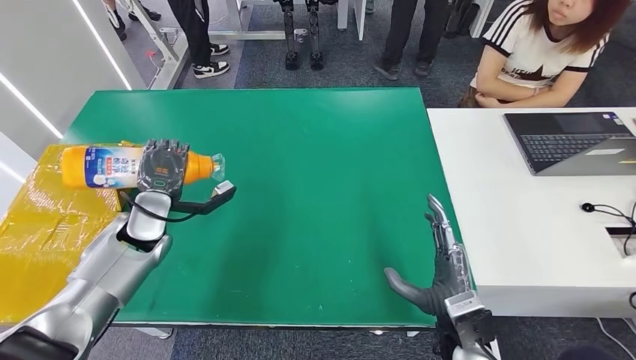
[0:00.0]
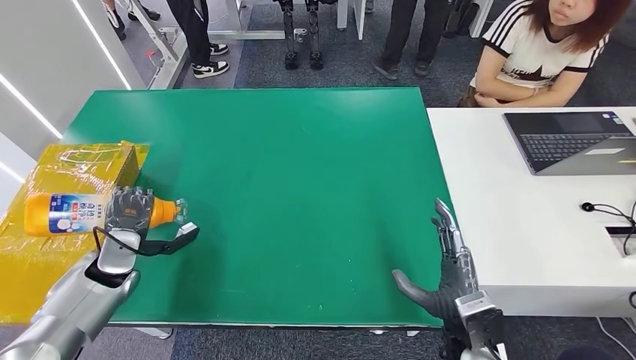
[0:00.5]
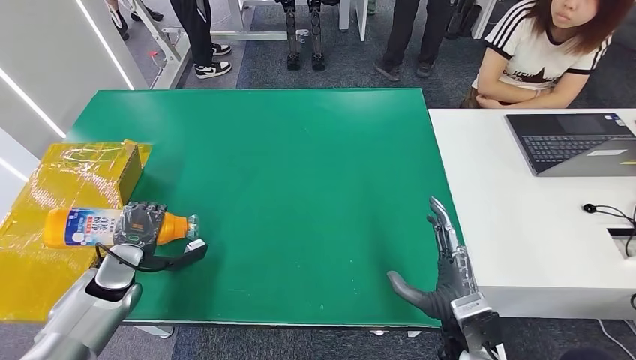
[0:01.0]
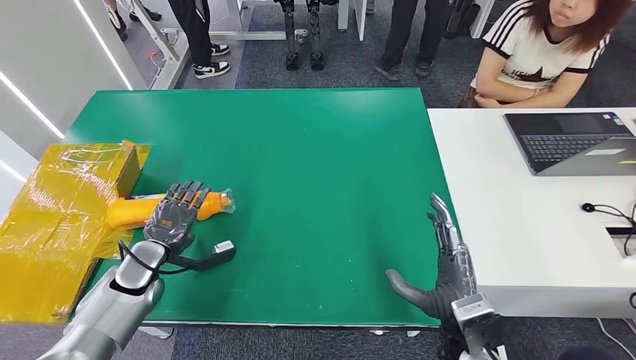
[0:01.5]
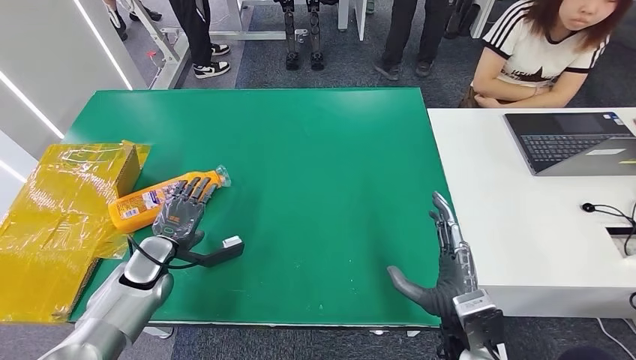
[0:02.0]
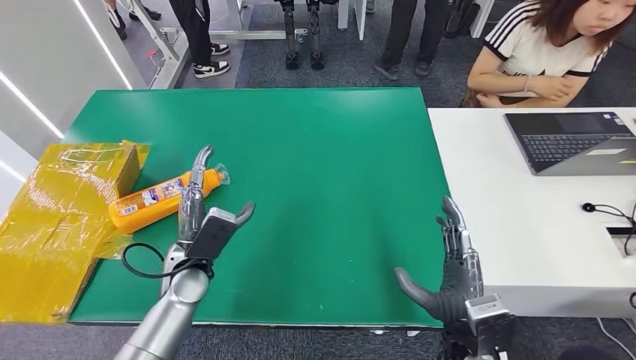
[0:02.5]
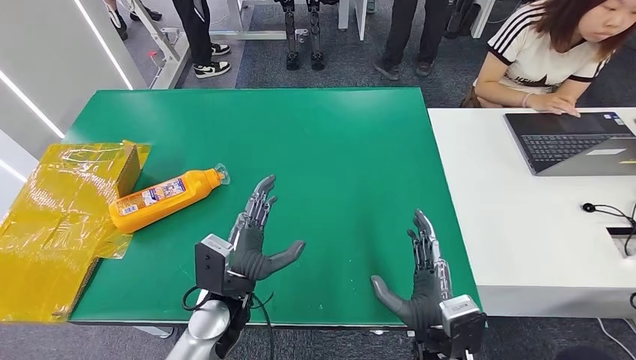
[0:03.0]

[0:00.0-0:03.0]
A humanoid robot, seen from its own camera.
Step, 0:00.0 to 0:03.0: Turn the bottle to the front side.
0:00.0 to 0:01.5: The left hand moves downward and backward, some 10 cm.
0:01.5 to 0:03.0: The left hand goes roughly 20 cm to the right and backward; the right hand ends up approximately 5 cm from where it was.
